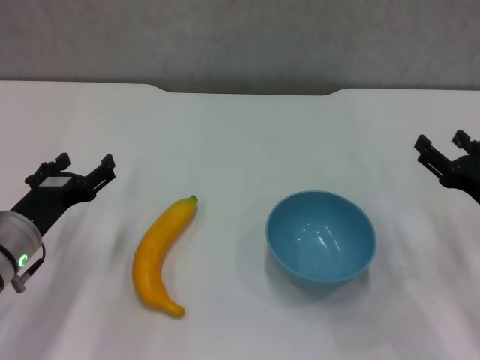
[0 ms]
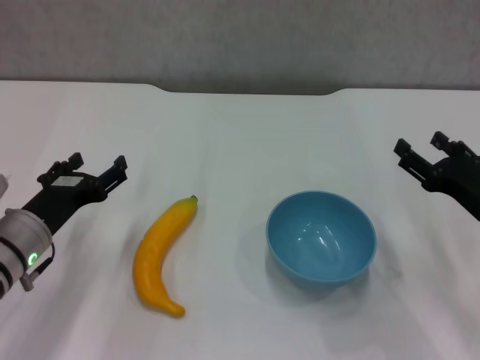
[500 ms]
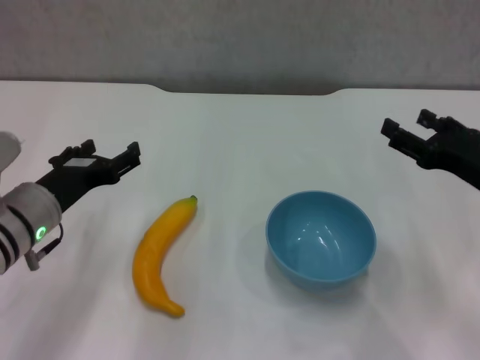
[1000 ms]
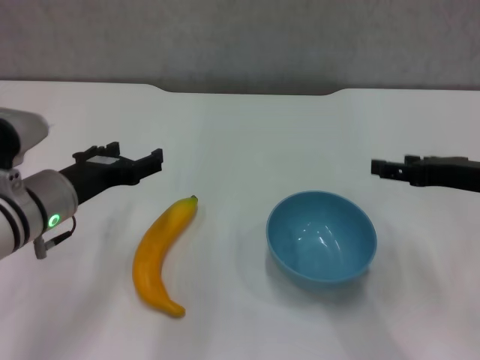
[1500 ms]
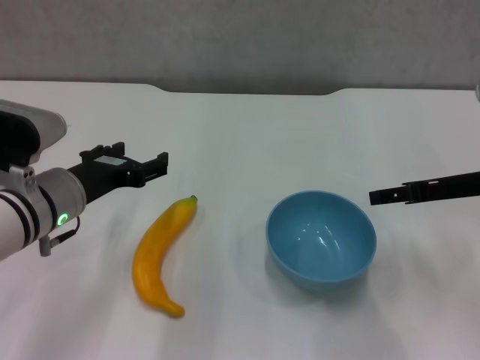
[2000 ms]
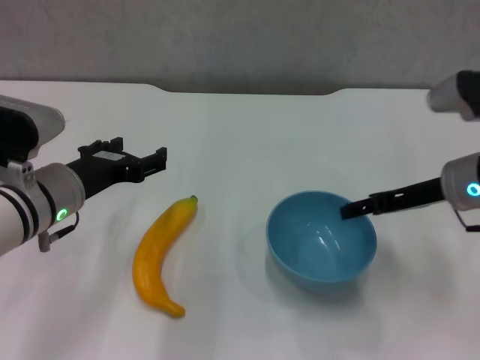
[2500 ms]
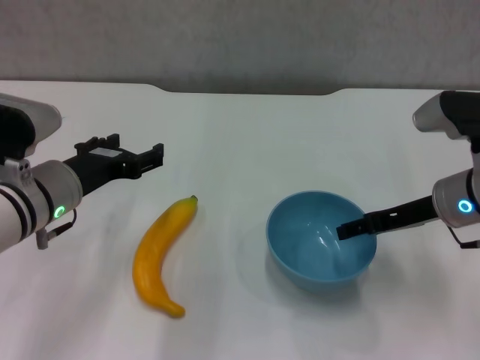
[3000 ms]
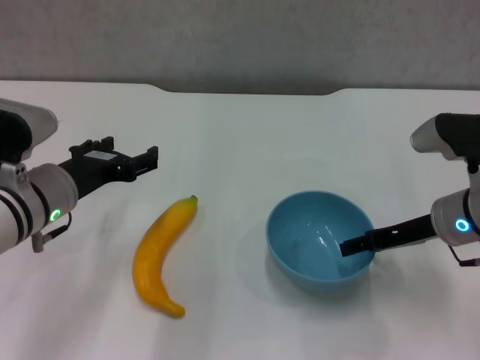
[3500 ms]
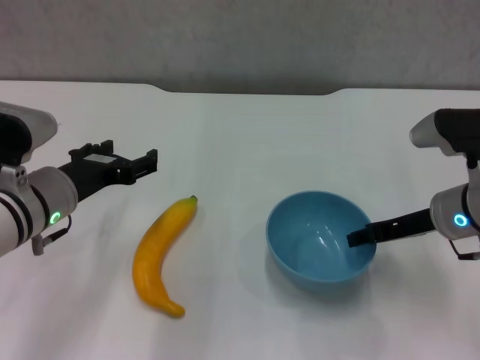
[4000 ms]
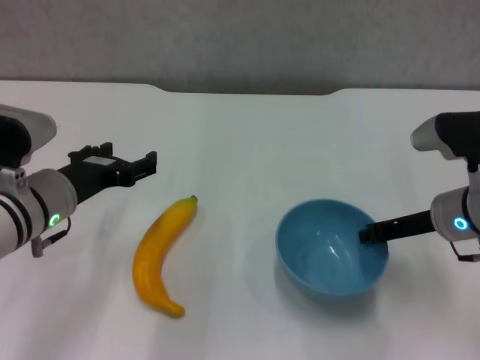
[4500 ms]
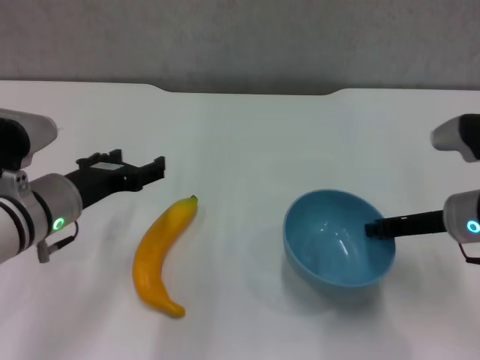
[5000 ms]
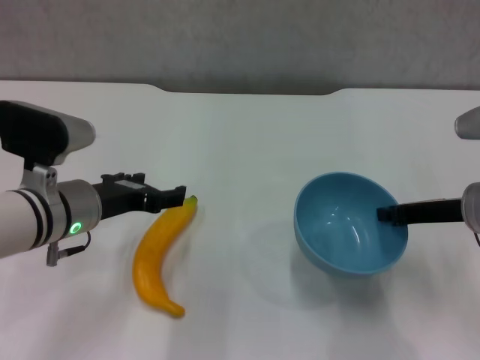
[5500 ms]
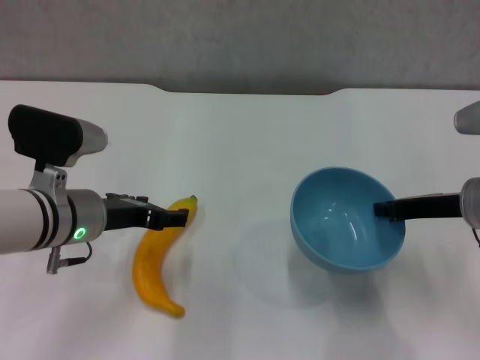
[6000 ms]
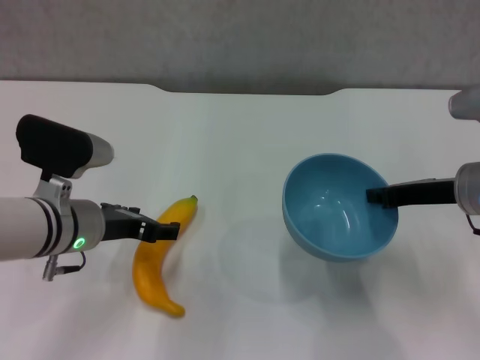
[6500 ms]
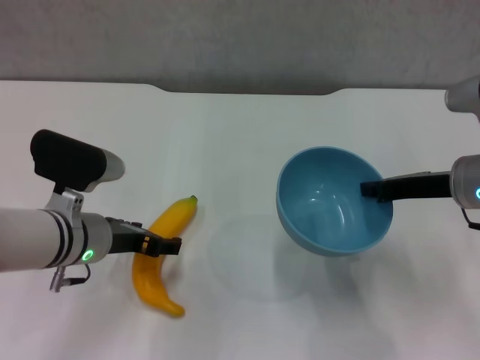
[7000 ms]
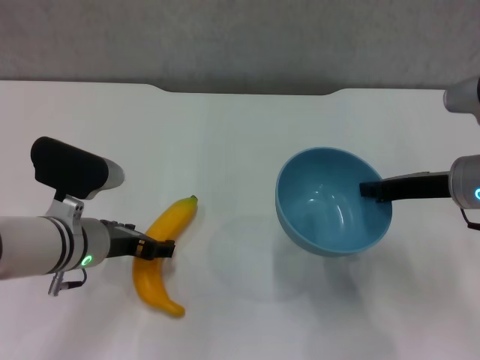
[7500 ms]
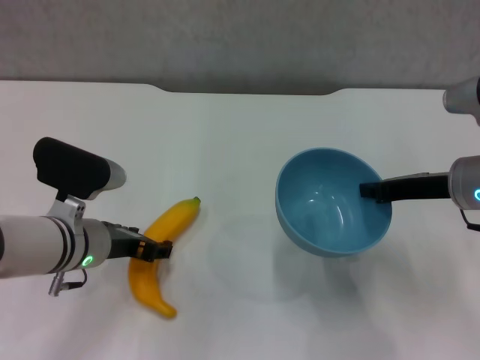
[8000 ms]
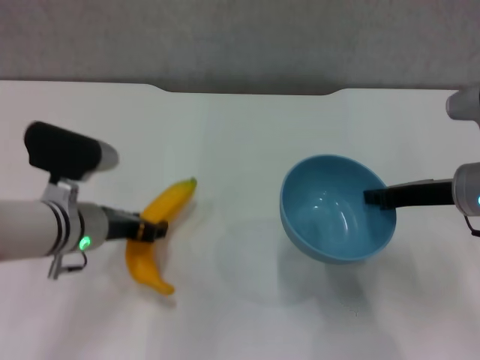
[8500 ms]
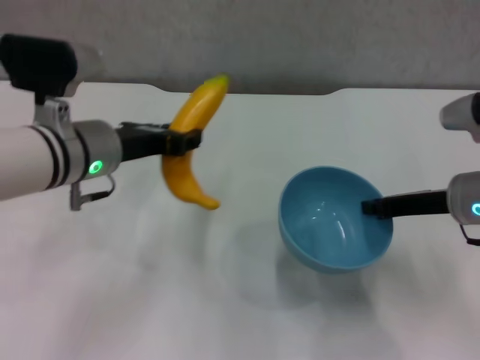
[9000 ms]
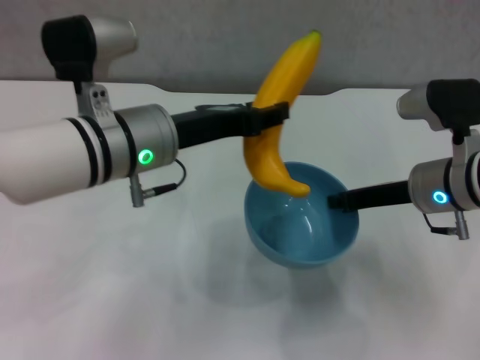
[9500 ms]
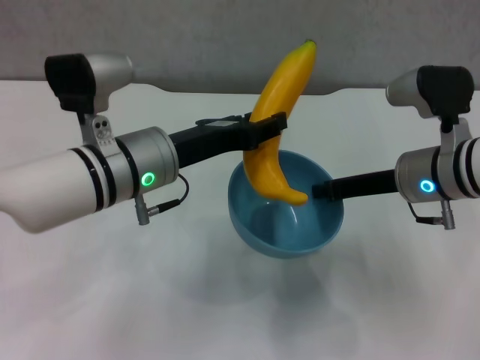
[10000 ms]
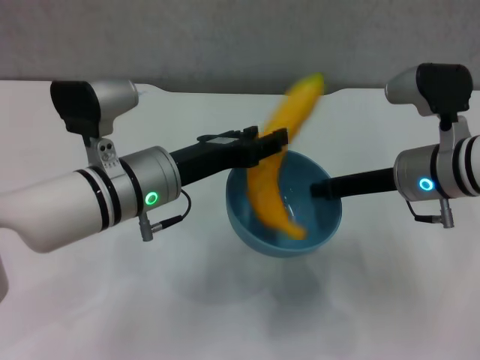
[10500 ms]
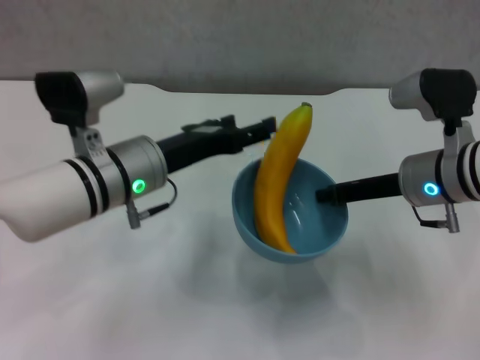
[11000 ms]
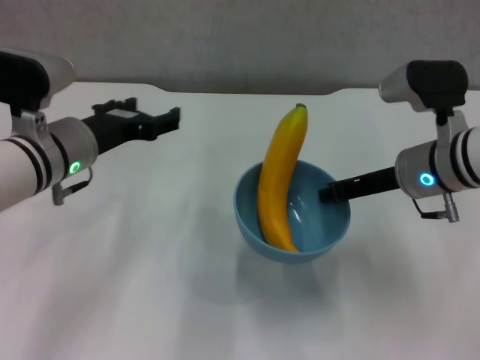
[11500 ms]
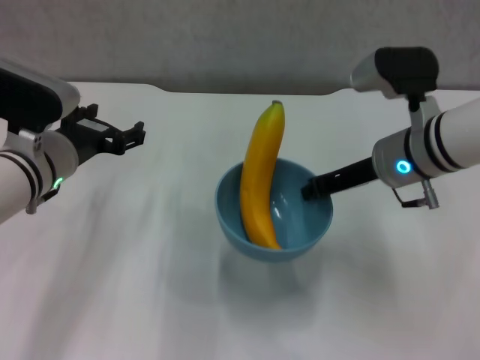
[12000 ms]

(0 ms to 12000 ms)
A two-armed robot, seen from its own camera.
Step, 0 ms - 4500 ms: Grasp the blue bowl with right gripper.
Step, 5000 ms - 5500 ms: Lift the blue bowl with right gripper.
Step, 6000 ms - 8000 ms: Grasp the banana with left gripper.
Step, 8500 ms - 10500 ms: Place the banana in the blue bowl with left gripper.
0 ms - 2000 ms: The left gripper is displaced upward by some 5 cm. Meanwhile the right gripper heads upward and forward, covering roughly 10 cm.
2000 ms - 4000 ms: The right gripper heads downward, covering approximately 5 cm.
4000 ms - 6000 ms: The right gripper closes.
6000 ms - 8000 ms: The grippers move only a little.
8000 ms - 10000 ms: The right gripper shifts by some 5 cm. Meanwhile the left gripper goes some 10 cm upward and to the right, and closes its fingers.
10000 ms - 12000 ms: The left gripper moves to the left, about 10 cm, and opens.

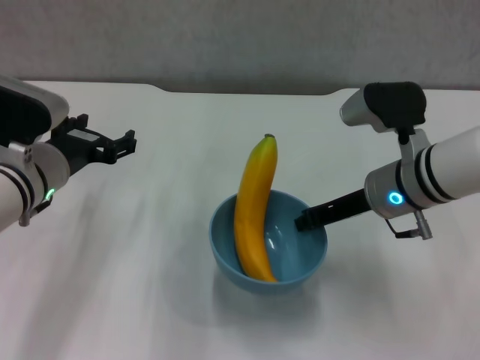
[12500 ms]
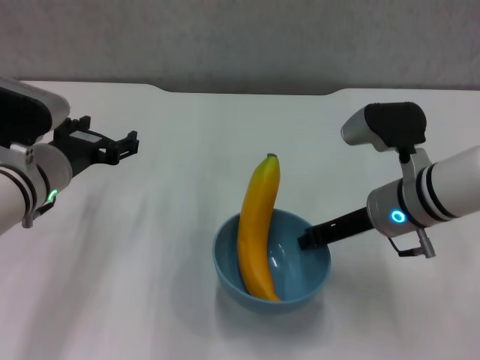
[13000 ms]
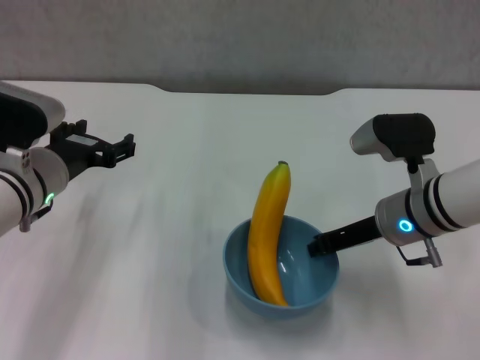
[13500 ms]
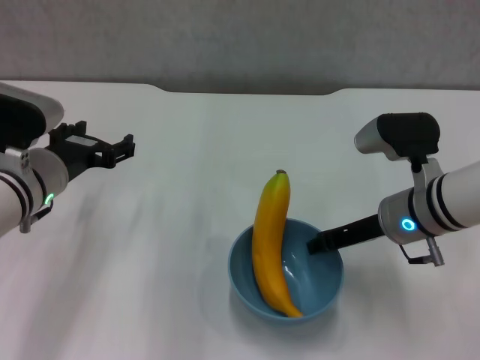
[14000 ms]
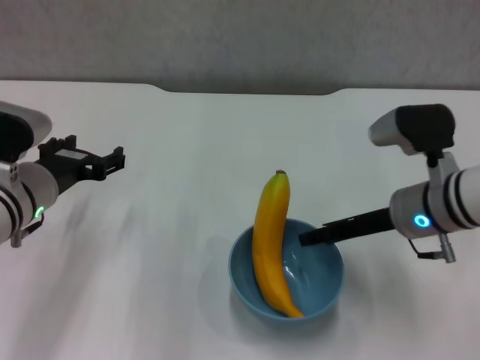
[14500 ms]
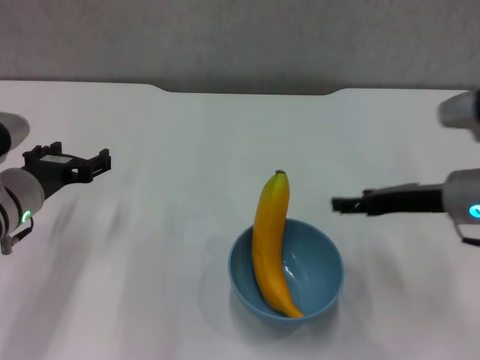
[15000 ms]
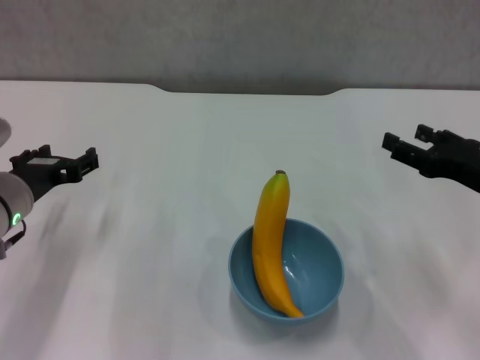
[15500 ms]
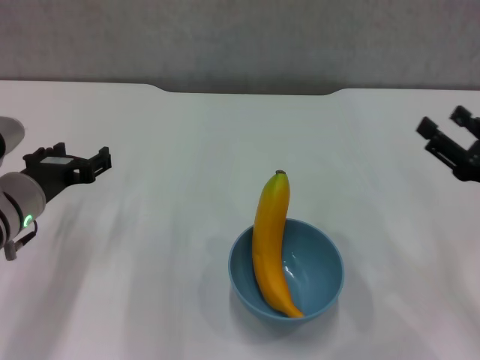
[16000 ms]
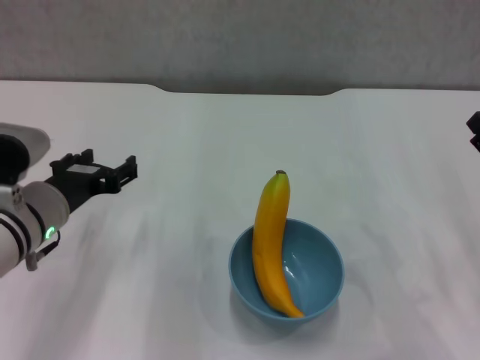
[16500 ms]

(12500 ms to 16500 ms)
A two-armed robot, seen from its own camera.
Step, 12500 ms - 14500 ms: Place the bowl on the table with right gripper.
12500 ms - 14500 ms: The right gripper opens.
14500 ms - 16500 ms: The right gripper goes roughly 15 cm to the right and backward.

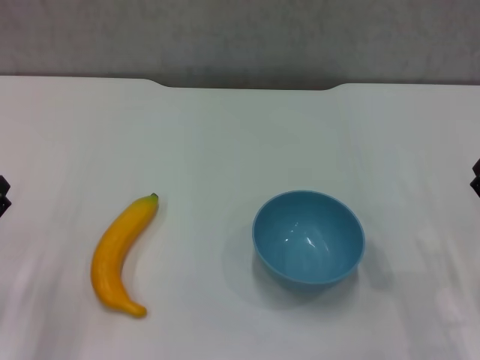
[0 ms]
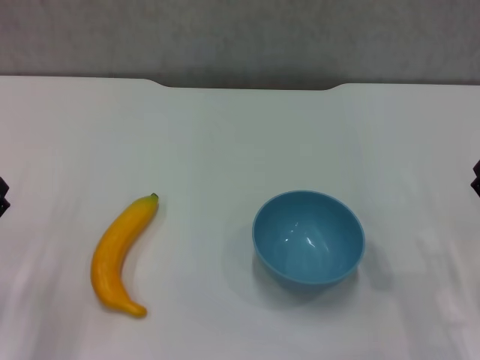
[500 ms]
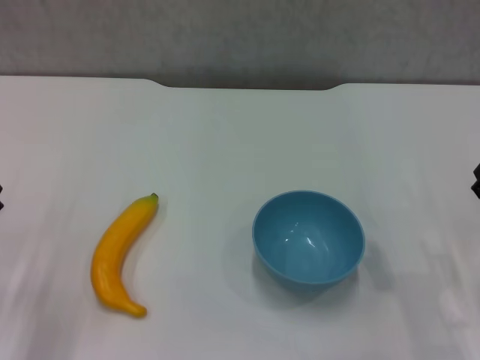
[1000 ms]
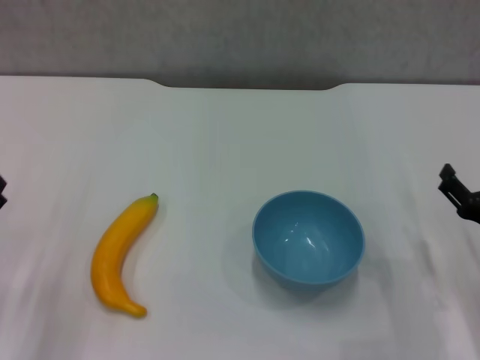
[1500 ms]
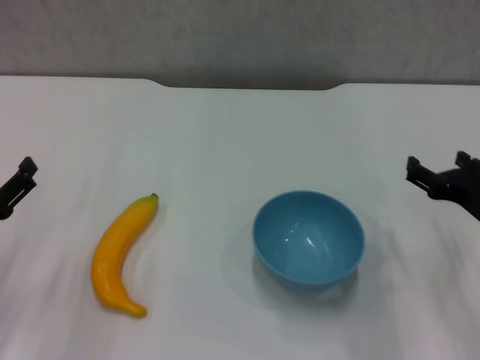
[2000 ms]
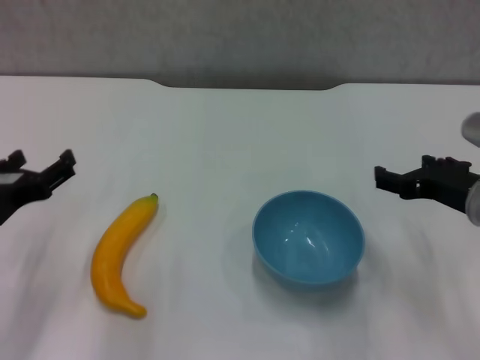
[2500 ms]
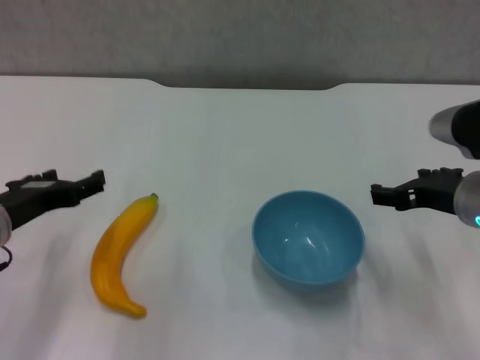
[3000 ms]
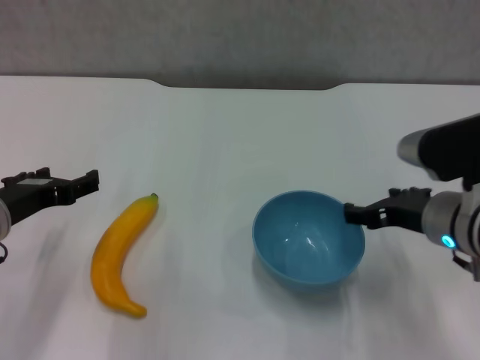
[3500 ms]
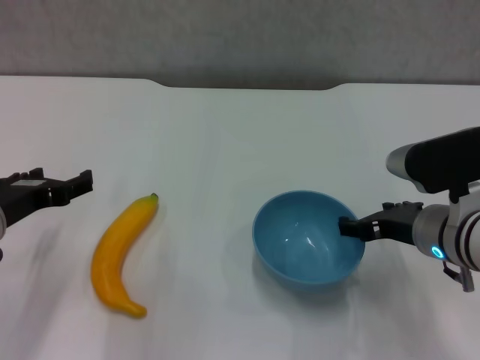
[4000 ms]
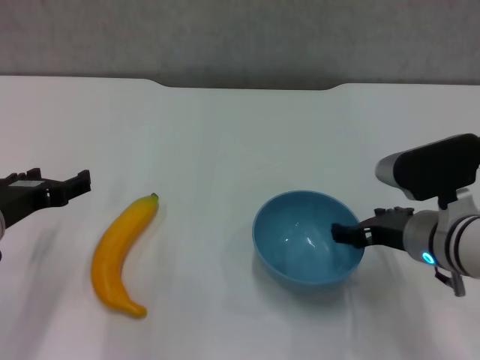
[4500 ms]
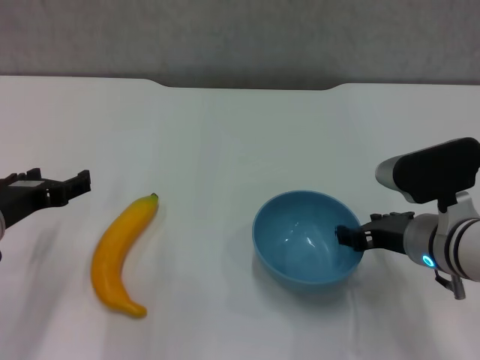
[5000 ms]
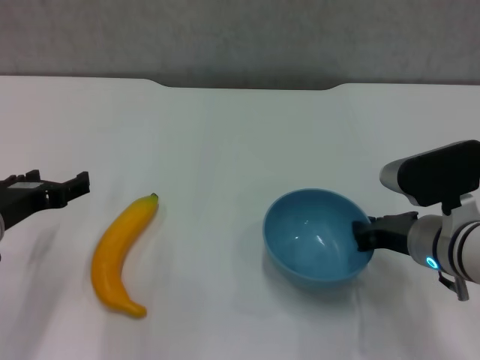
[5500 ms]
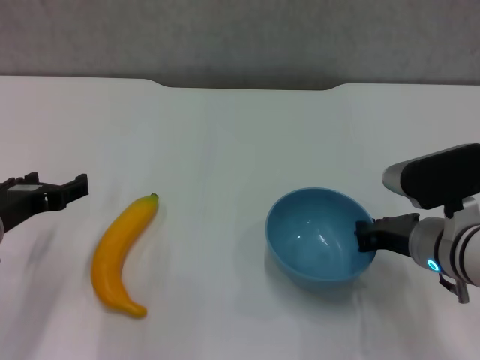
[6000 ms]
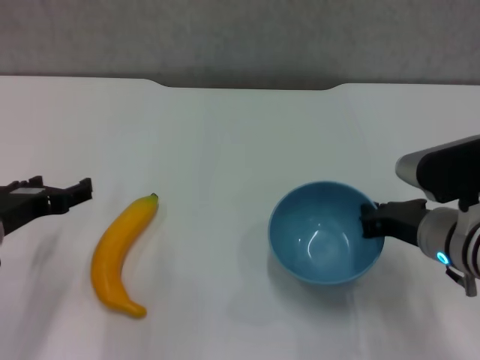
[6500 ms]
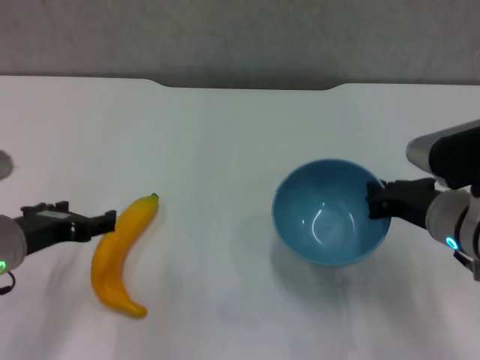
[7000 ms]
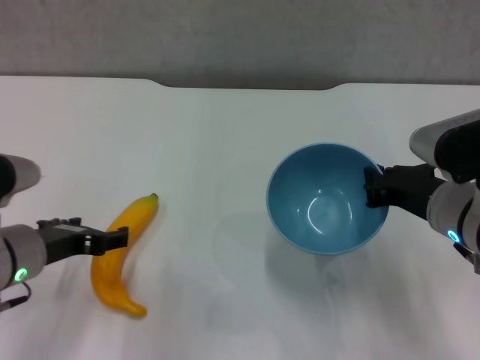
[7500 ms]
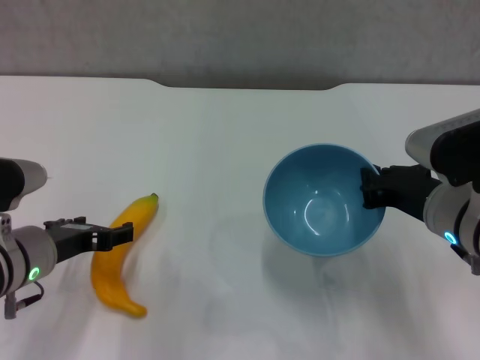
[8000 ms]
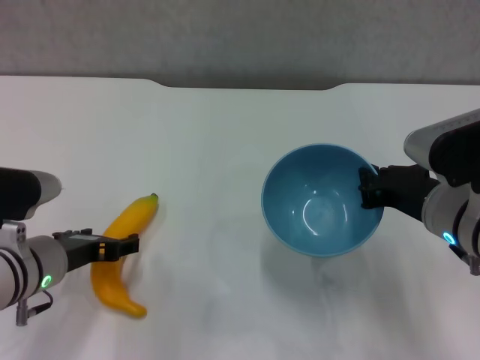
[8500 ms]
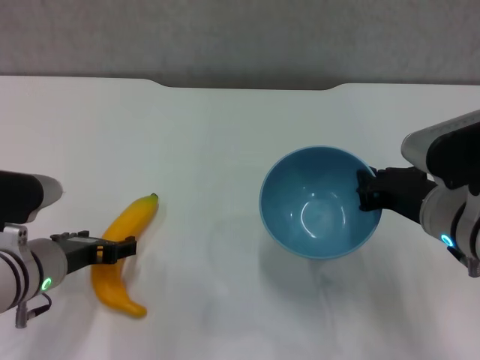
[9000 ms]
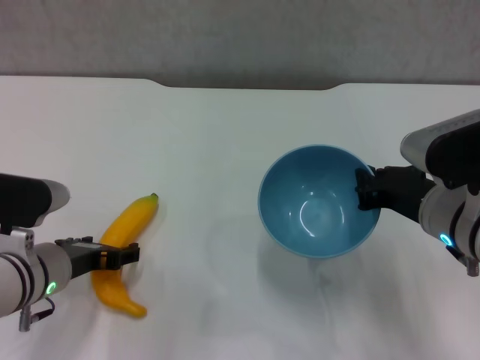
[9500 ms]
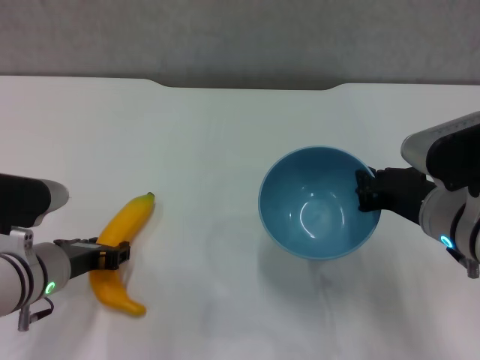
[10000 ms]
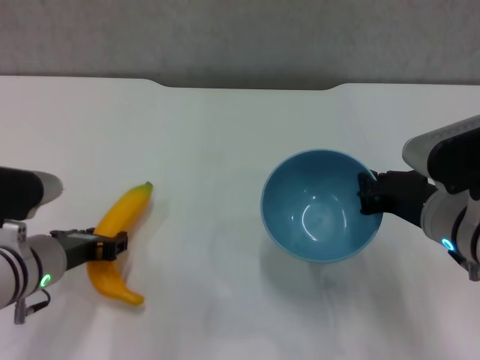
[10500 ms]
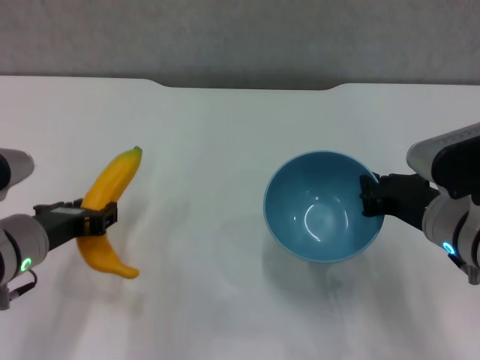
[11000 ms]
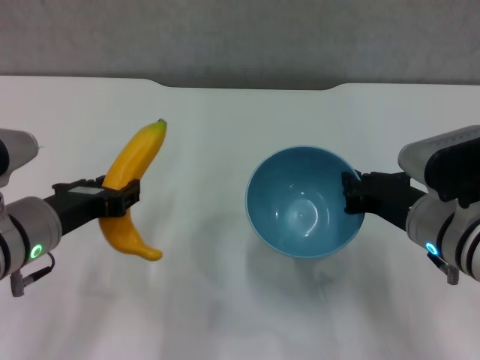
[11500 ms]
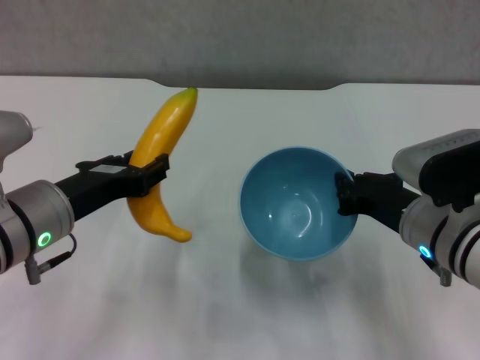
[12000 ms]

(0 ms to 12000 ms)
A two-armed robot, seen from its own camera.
Step, 0 ms - 5500 ms: Grasp the blue bowl with right gripper.
Step, 6000 ms - 7000 ms: Lift the blue bowl with right gripper.
Step, 7500 ms - 10000 ms: Grasp the banana with left gripper.
0 ms - 2000 ms: The right gripper travels upward and forward by roughly 10 cm.
2000 ms - 4000 ms: The right gripper travels to the left by some 5 cm. The left gripper travels forward by some 5 cm.
4000 ms - 6000 ms: The right gripper closes.
6000 ms - 8000 ms: The right gripper moves roughly 5 cm.
8000 ms - 10000 ms: The left gripper closes its fingers.
10000 ms - 12000 ms: The left gripper moves upward, approximately 10 cm.
